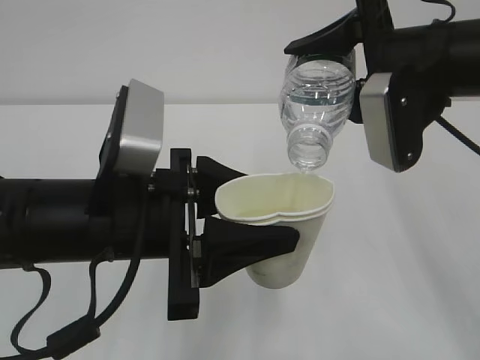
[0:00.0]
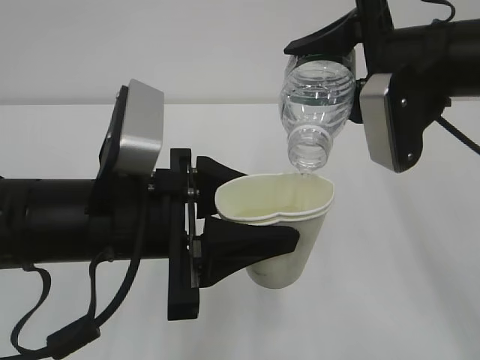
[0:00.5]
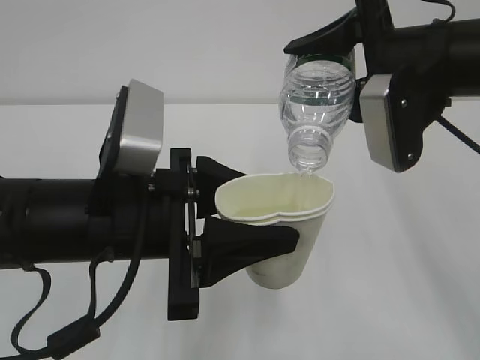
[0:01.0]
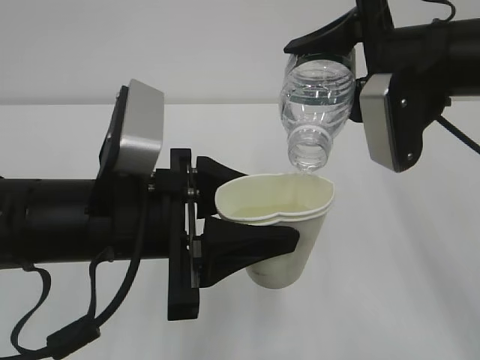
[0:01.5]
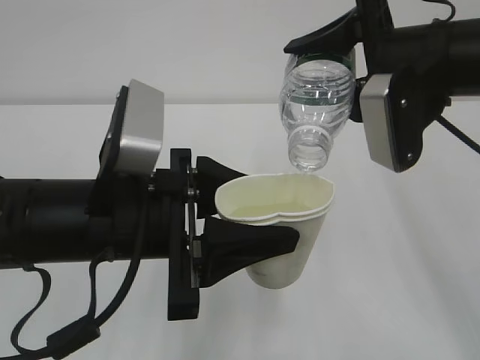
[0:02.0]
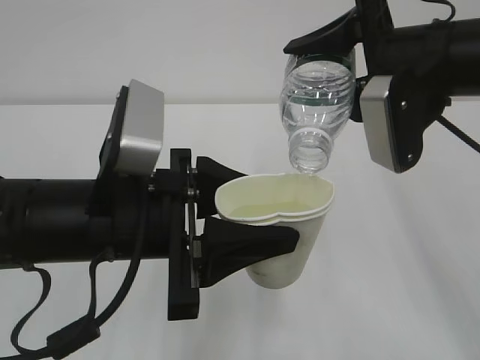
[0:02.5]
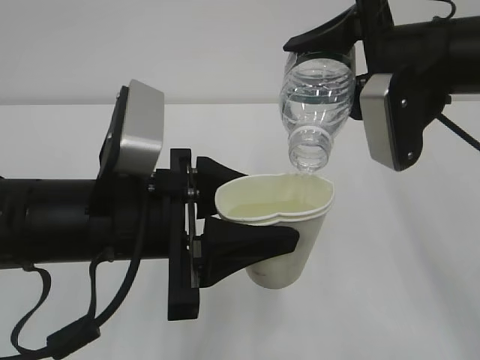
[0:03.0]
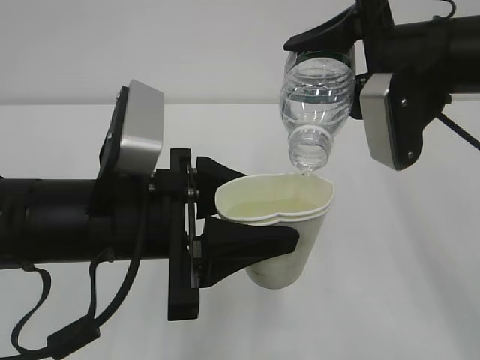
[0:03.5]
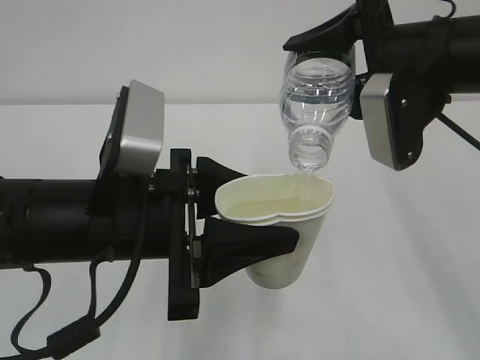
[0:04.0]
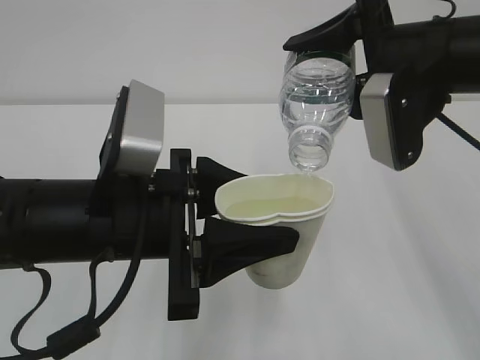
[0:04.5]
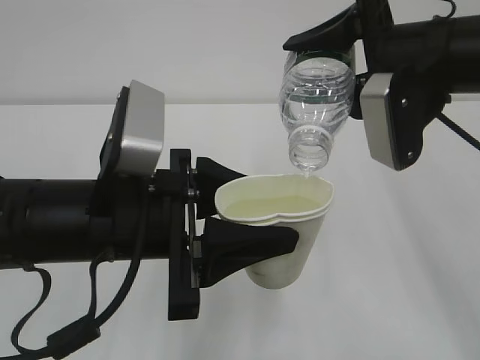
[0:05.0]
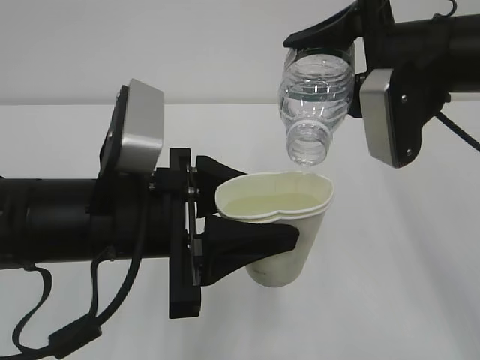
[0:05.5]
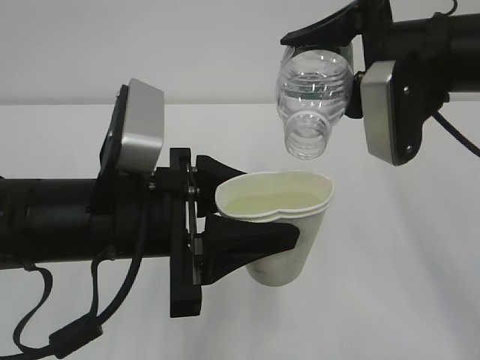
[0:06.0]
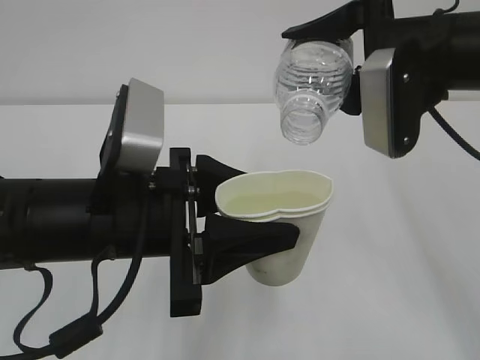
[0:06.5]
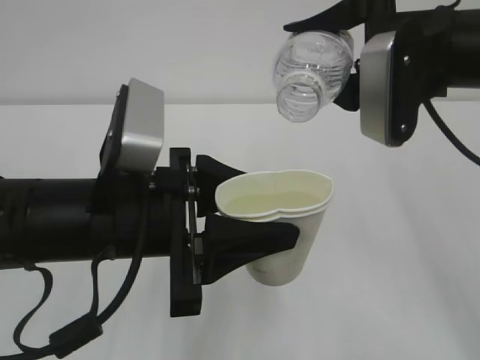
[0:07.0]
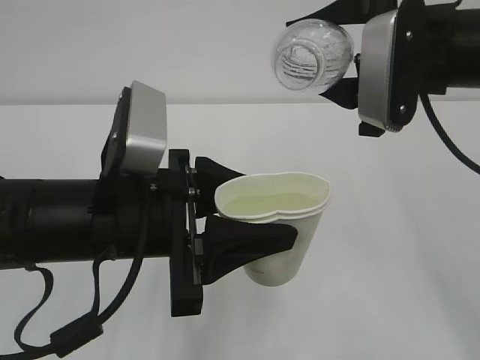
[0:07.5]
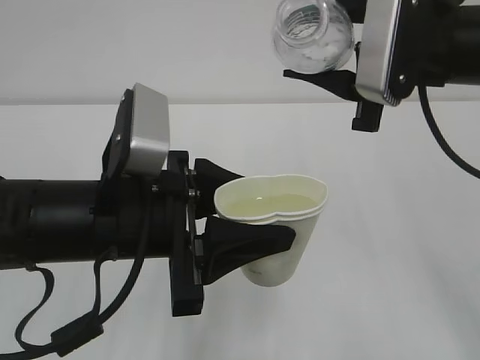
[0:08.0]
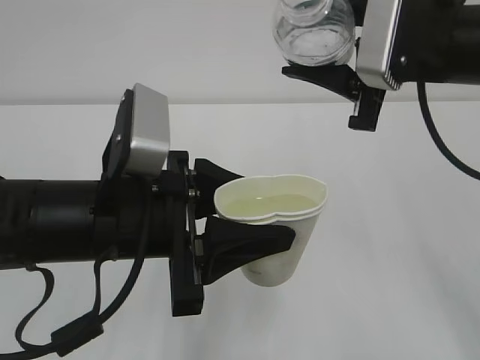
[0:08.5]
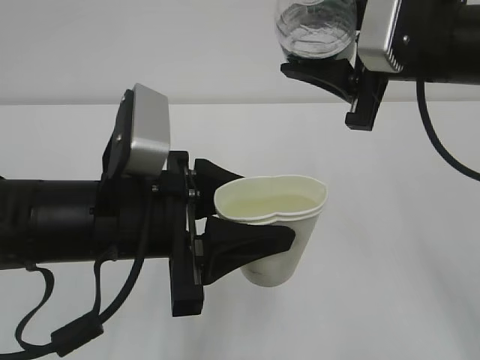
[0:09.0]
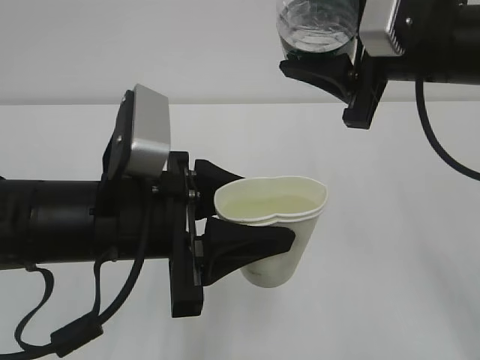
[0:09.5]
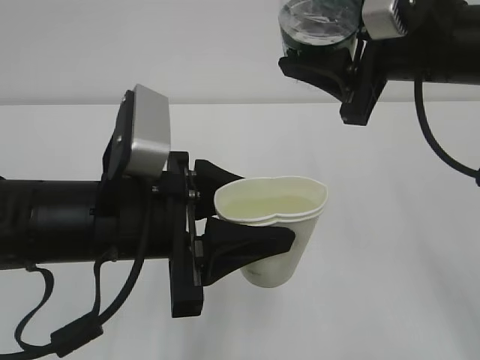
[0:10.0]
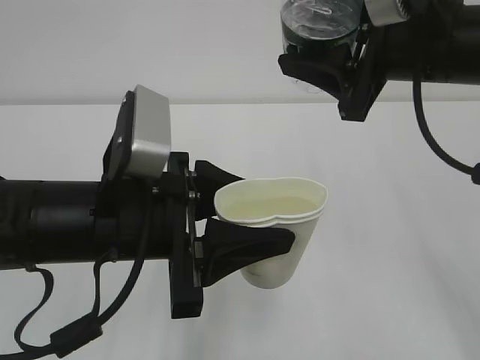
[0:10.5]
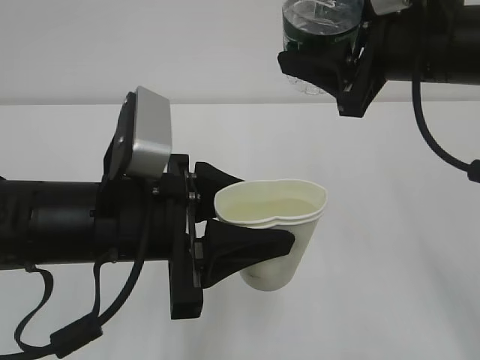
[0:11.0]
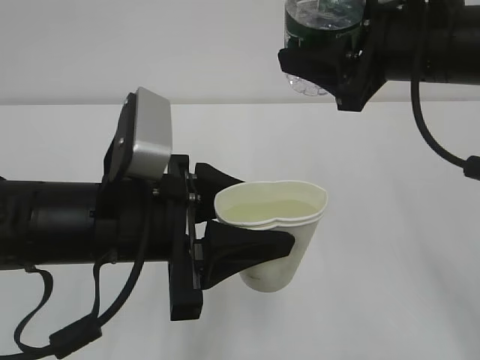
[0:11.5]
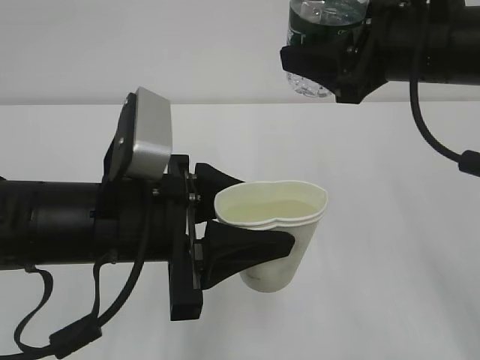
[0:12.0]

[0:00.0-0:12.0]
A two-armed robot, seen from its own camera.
Step, 0:00.0 to 0:07.5: Pour the water with right gripper.
Step, 0:00.0 to 0:07.5: Take the water with left gripper.
0:00.0 to 0:04.0: Neither gripper changes place.
0:04.0 to 0:06.0: The grippers stay close to where they were, moving slightly.

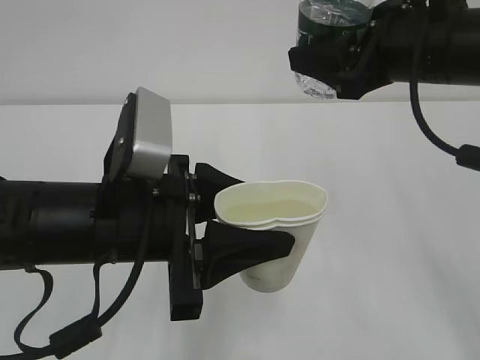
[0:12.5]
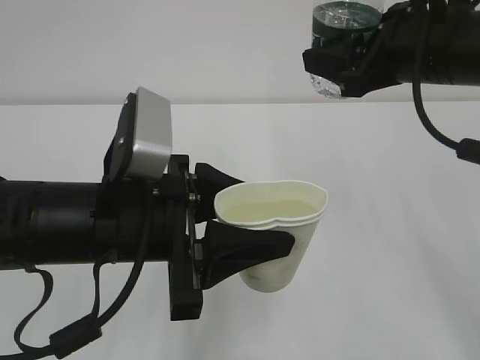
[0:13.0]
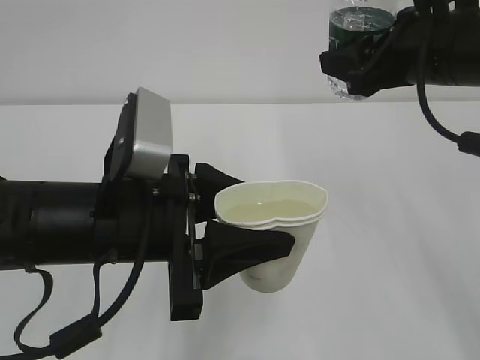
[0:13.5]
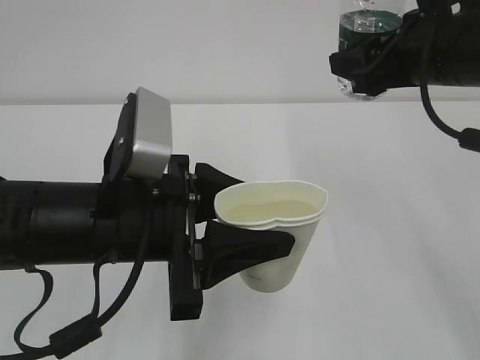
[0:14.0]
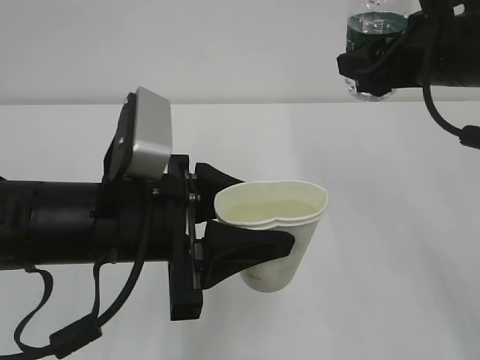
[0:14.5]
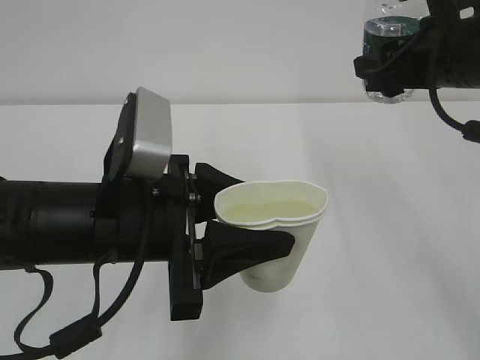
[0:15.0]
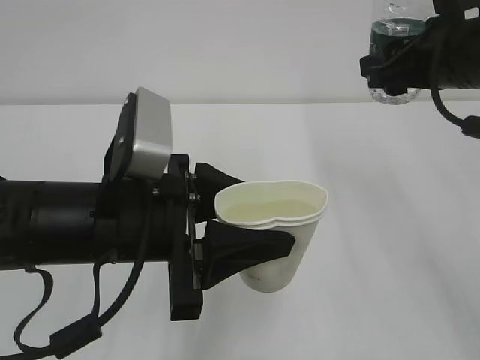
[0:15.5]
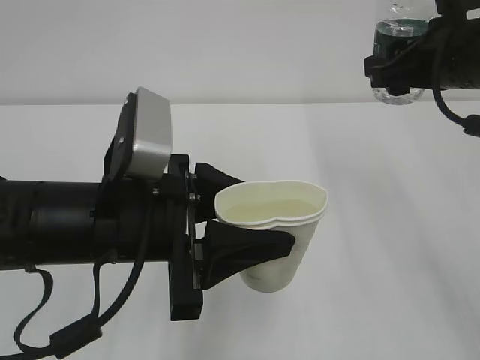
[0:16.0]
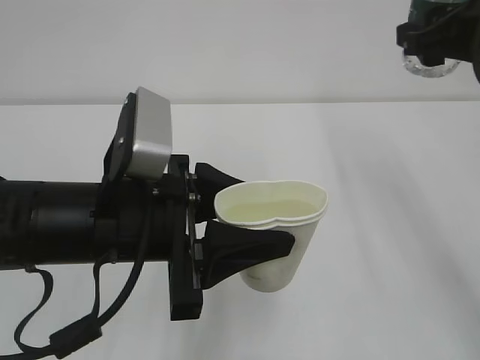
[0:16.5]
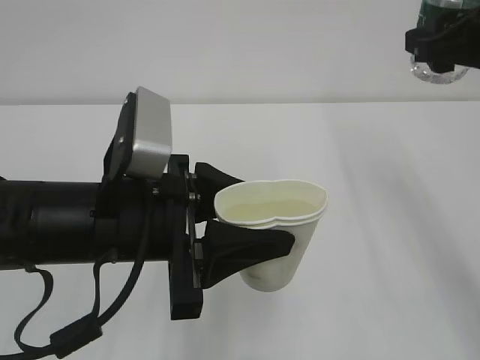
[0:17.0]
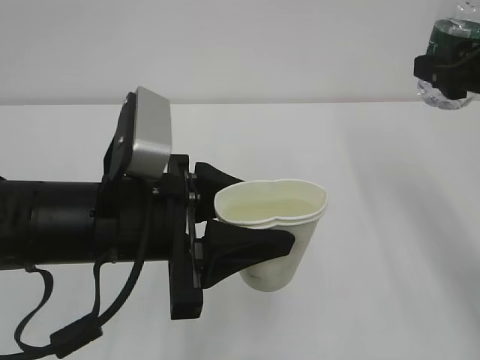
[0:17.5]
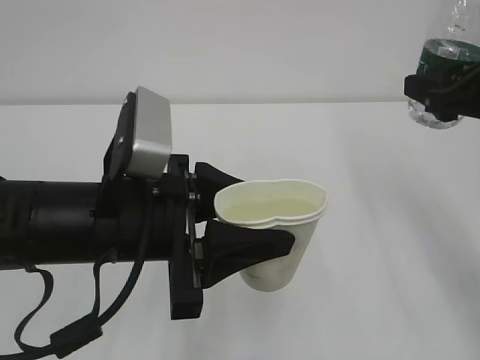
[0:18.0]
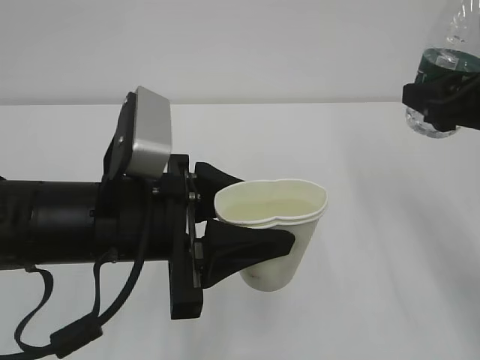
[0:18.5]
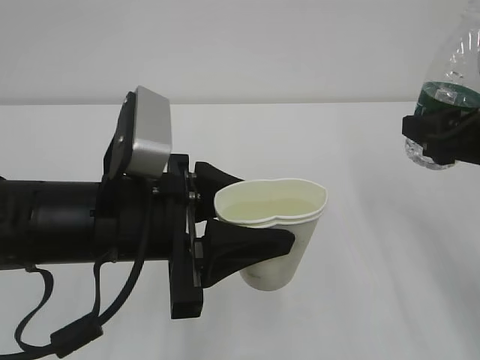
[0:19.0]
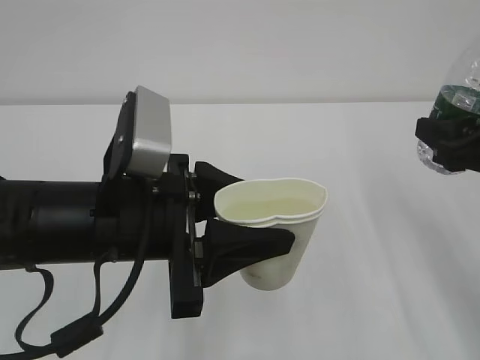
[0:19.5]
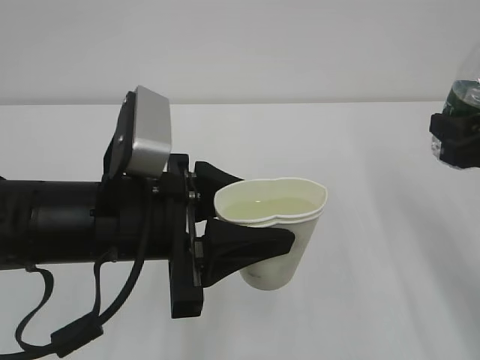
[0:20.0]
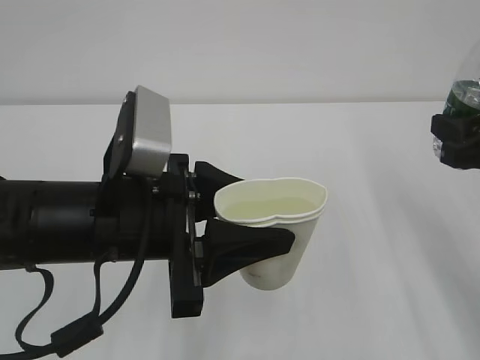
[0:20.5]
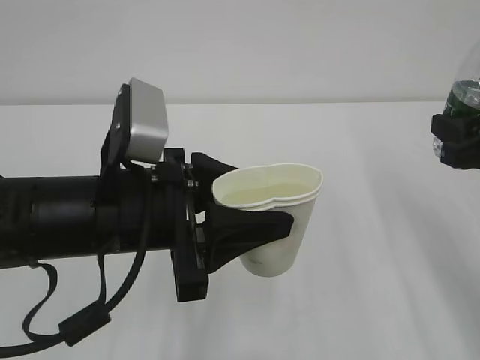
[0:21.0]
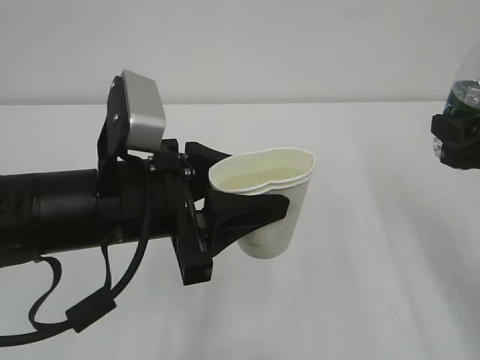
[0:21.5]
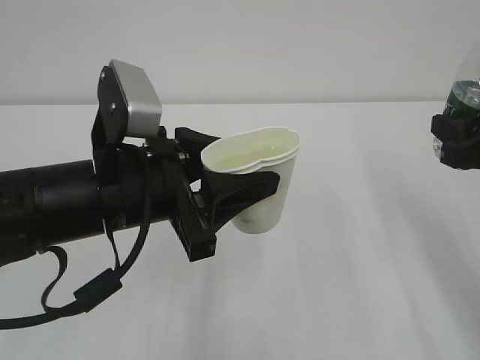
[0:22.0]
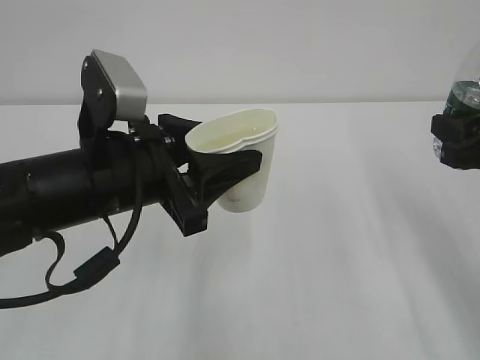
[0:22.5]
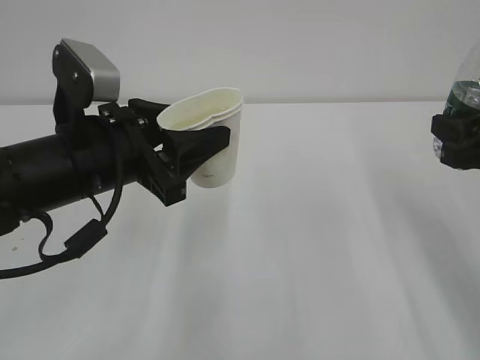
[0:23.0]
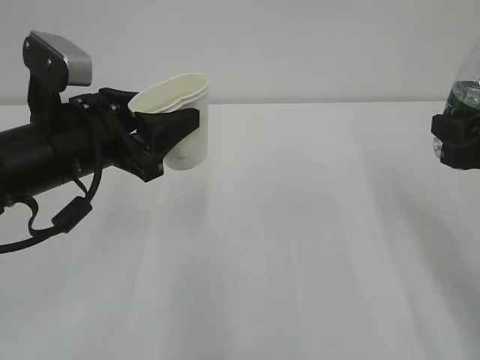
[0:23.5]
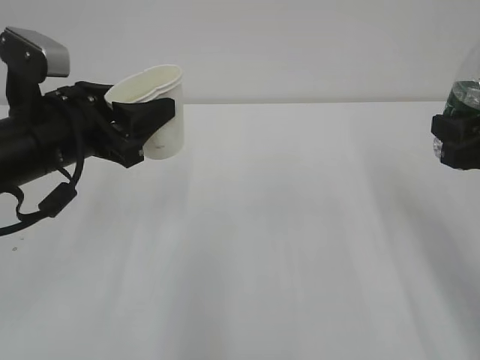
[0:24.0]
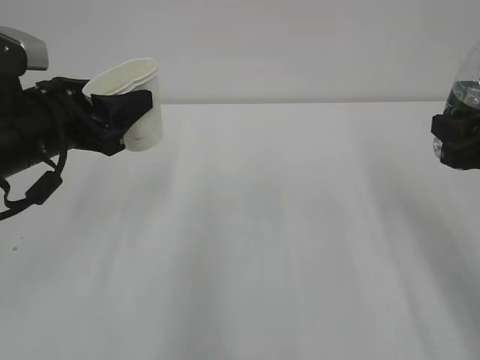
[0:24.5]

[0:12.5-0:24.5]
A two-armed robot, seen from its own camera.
0:14.5 to 0:16.5: The grippers stay close to where they were, moving slightly.
0:16.5 to 0:18.5: The right gripper moves downward, roughly 5 cm.
0:18.5 to 0:20.5: There are only small adjustments of the grippers.
0:22.5 to 0:24.5: The left gripper heads to the left and forward, covering roughly 10 cm.

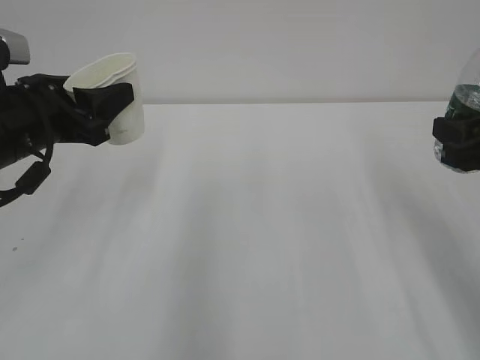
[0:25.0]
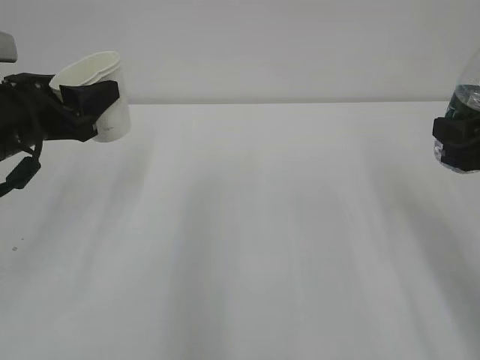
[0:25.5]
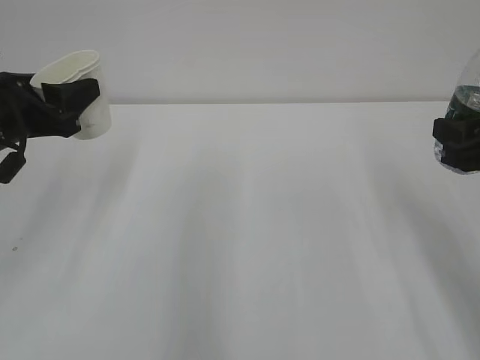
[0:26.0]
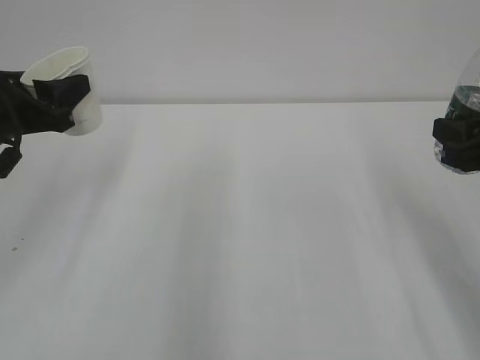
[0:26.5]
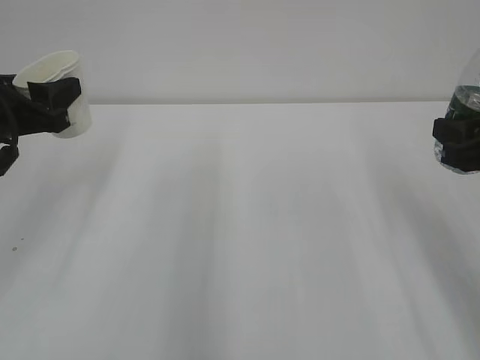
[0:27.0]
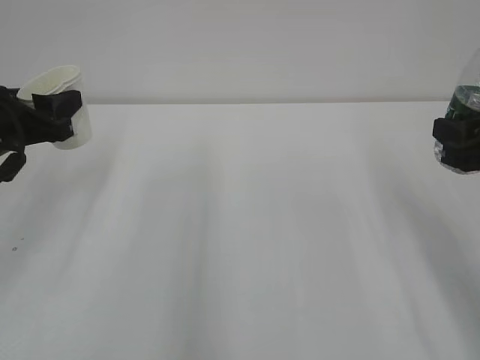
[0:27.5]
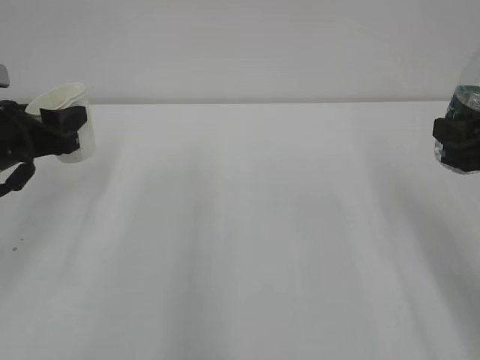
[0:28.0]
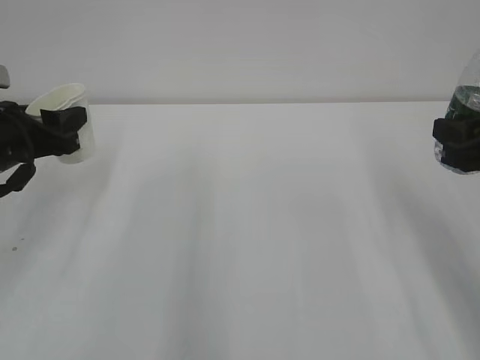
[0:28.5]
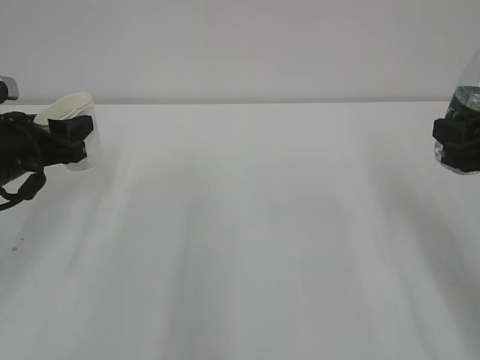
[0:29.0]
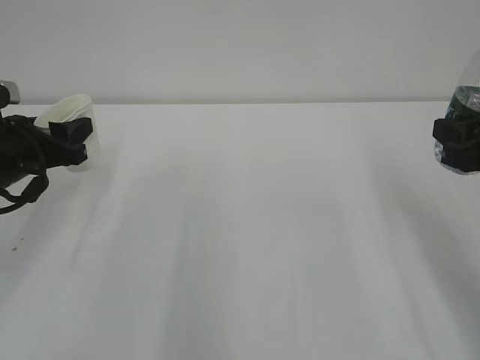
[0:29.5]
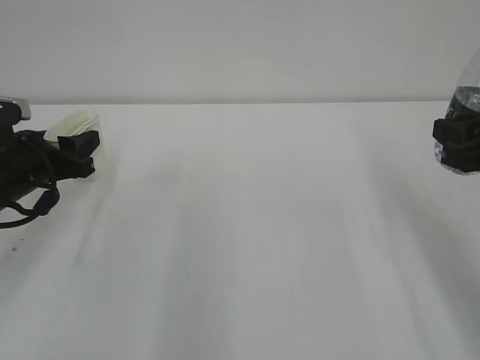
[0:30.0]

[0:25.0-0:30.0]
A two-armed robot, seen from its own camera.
0:25.0 to 0:27.5: The left gripper changes place by approximately 5 cm.
0:27.5 to 0:30.0: The left gripper heads downward, covering about 5 cm.
